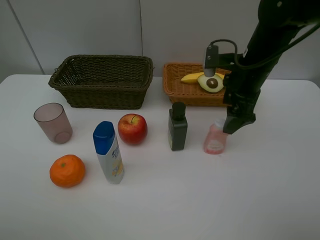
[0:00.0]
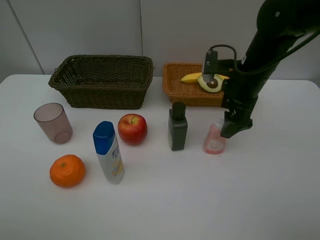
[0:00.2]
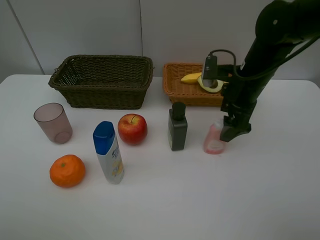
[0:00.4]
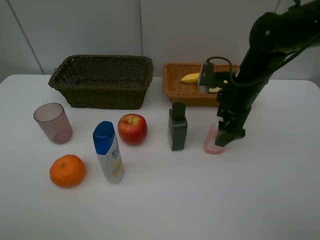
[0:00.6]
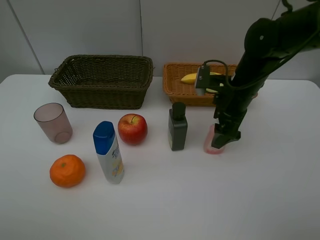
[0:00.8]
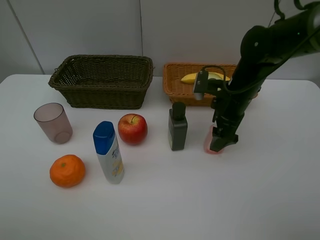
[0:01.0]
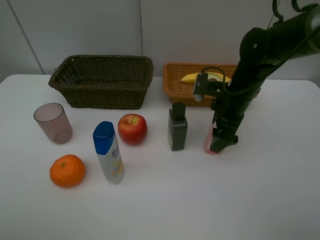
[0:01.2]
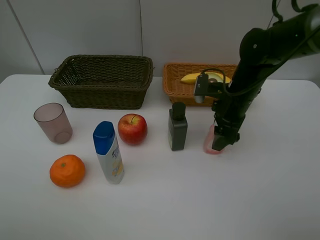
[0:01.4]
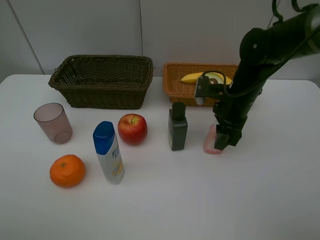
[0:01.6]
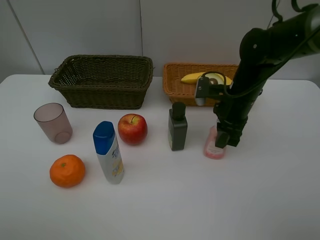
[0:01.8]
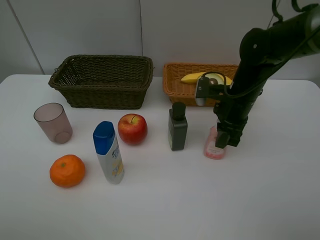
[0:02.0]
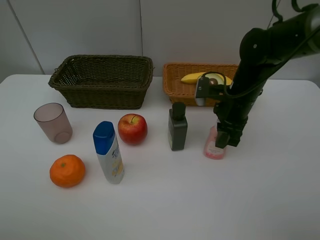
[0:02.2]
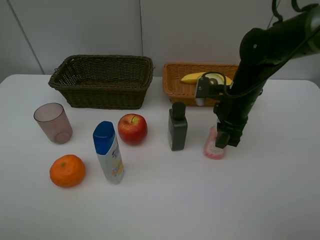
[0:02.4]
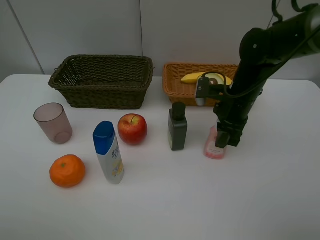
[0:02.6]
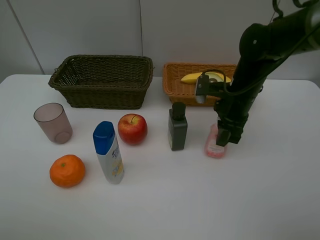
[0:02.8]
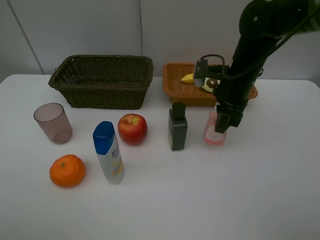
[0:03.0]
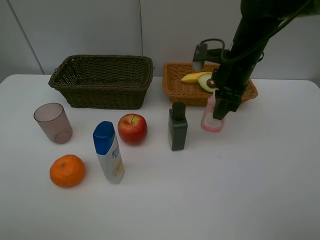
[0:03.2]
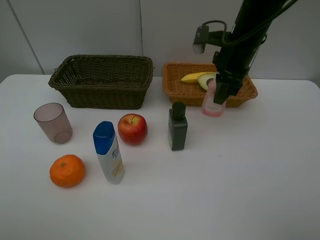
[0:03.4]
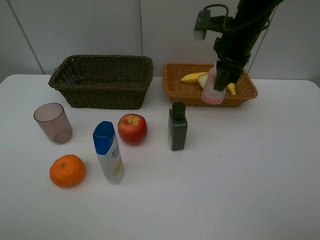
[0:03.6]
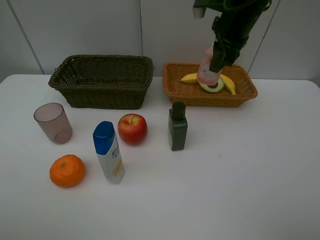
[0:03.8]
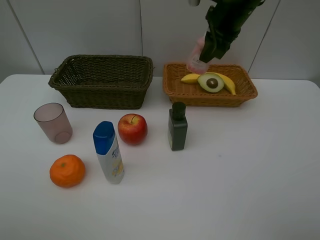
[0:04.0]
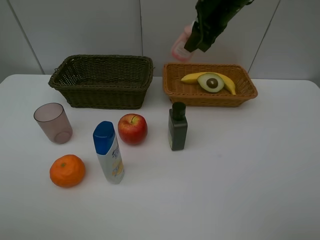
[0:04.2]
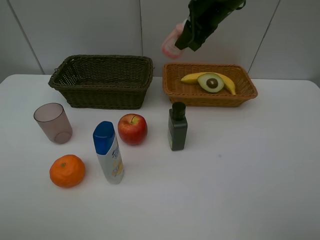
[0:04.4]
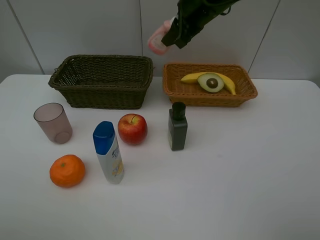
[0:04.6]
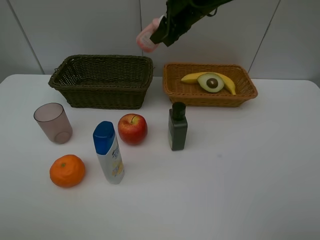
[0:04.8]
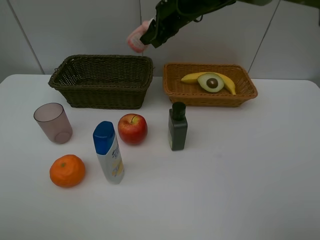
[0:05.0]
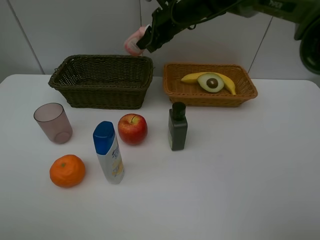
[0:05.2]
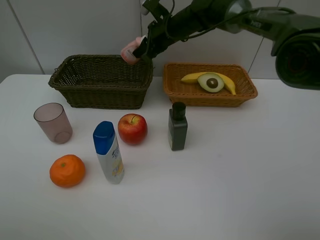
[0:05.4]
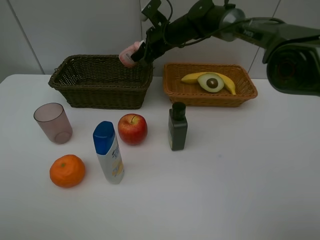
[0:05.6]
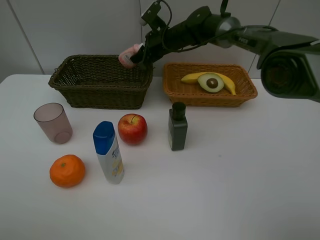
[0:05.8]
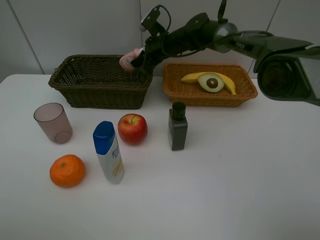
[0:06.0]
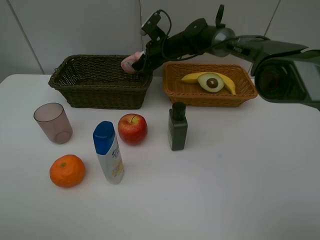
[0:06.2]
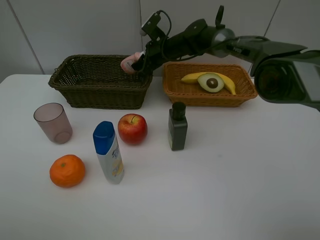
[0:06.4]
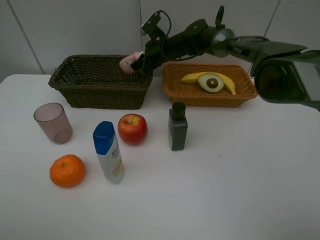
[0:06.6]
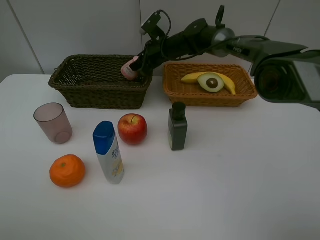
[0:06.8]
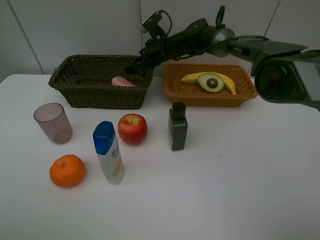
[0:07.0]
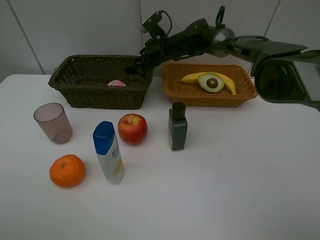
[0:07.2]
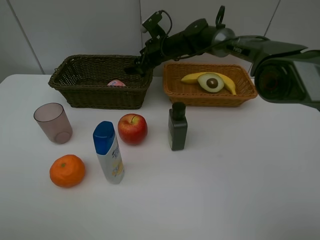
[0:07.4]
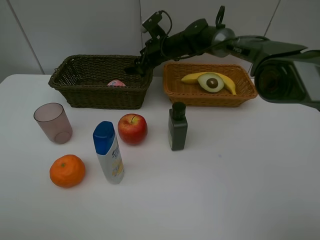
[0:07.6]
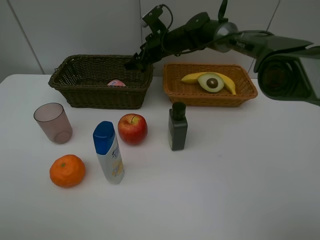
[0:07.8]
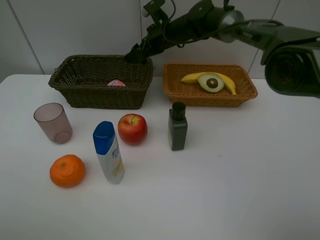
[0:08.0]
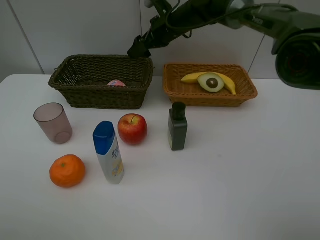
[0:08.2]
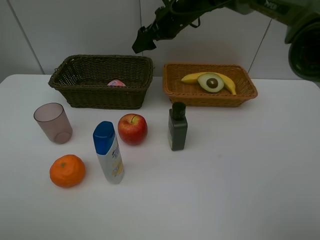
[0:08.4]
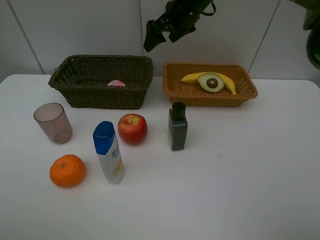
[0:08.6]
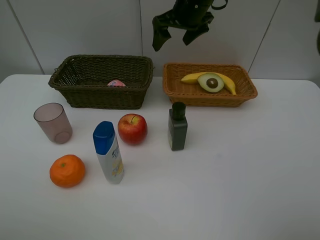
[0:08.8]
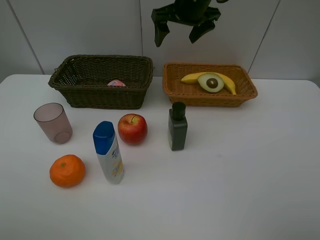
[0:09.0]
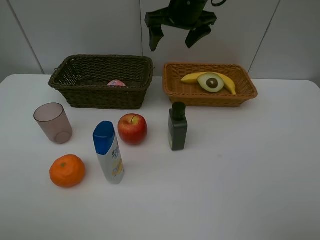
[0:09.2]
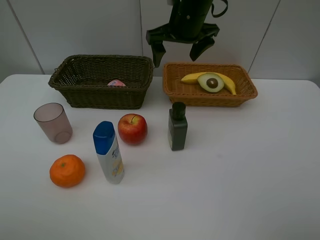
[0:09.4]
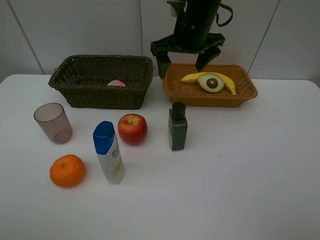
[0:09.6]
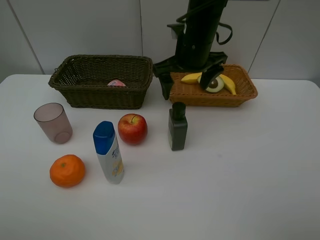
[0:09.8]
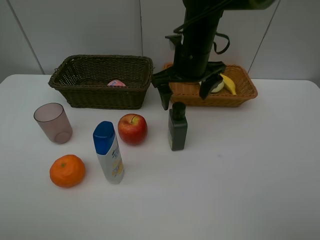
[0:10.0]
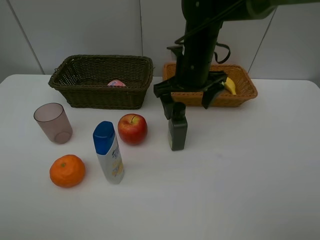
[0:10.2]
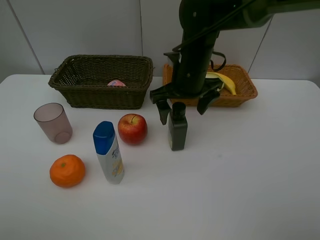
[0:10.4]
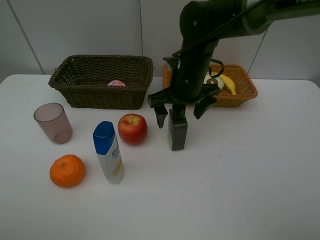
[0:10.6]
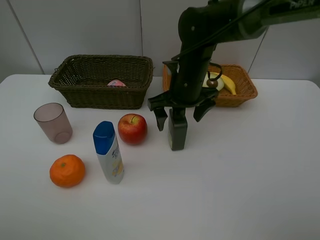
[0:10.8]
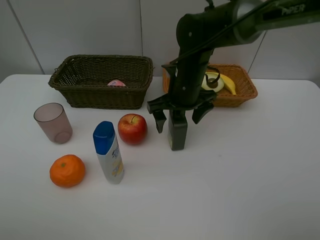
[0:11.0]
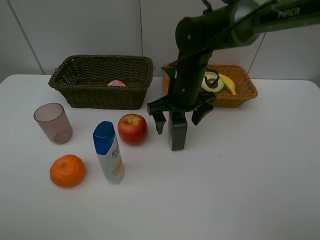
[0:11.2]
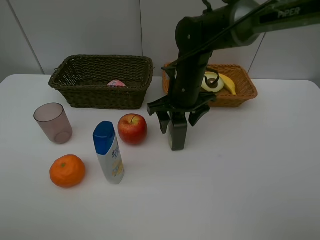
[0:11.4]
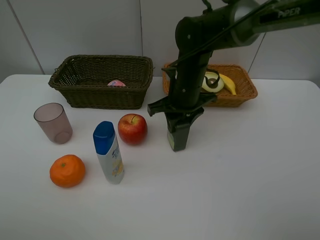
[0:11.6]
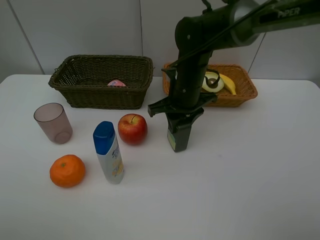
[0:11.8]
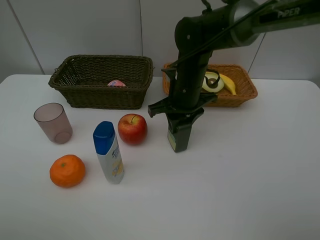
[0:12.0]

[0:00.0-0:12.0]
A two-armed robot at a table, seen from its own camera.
Task of the whole recording: Place multiple objects separately in different baskets.
Step, 0:00.0 to 0:03.0: Pick up the laundry detergent with right gripper.
Step, 0:03.2 to 0:07.6: Place the laundry detergent in the dark basket with right gripper.
0:00.0 to 0:01.6: The right gripper moves downward, approximately 5 cm, and closes up.
0:01.6 to 0:03.0: The right gripper moves approximately 5 cm.
0:03.0 to 0:04.4: The right gripper heads upward and forward, covering about 10 cm.
0:04.4 to 0:06.0: The right gripper is displaced downward, forward and to the left by approximately 20 cm.
0:06.0 to 0:07.6: The right gripper opens up.
0:07.6 to 0:09.0: The right gripper heads upward and backward, covering roughly 15 cm.
0:09.0 to 0:10.4: The right gripper moves downward and backward, roughly 15 cm.
0:10.4 to 0:12.0: The right gripper closes.

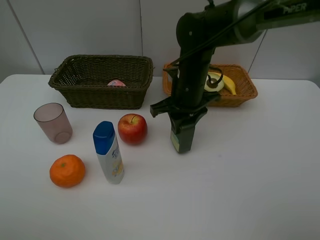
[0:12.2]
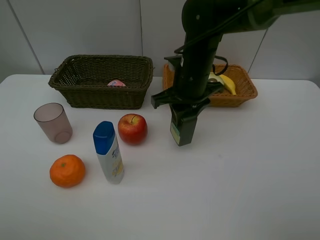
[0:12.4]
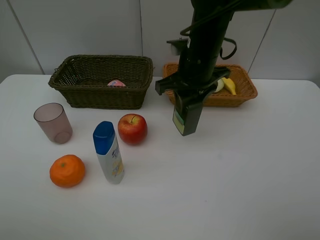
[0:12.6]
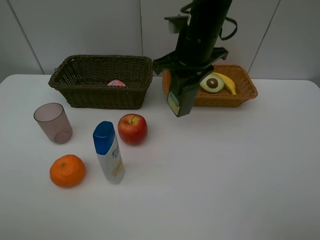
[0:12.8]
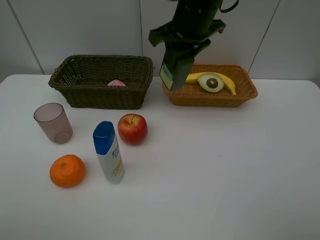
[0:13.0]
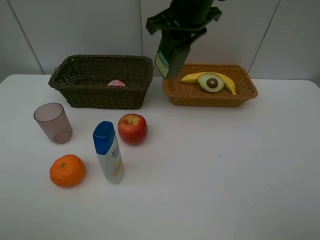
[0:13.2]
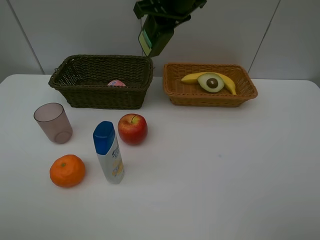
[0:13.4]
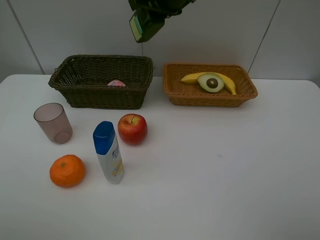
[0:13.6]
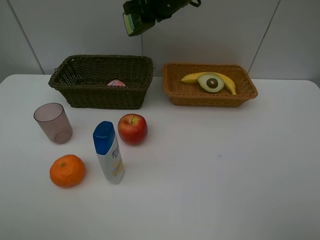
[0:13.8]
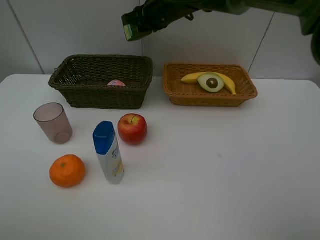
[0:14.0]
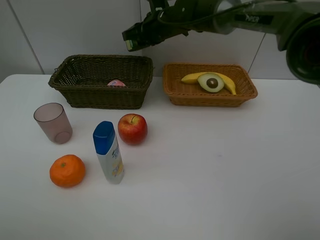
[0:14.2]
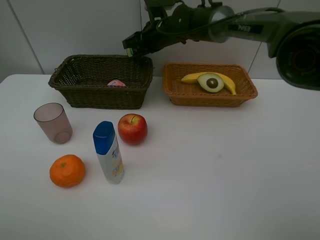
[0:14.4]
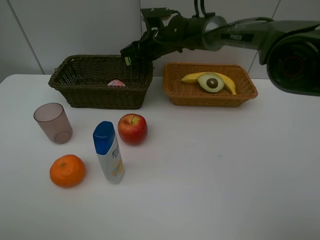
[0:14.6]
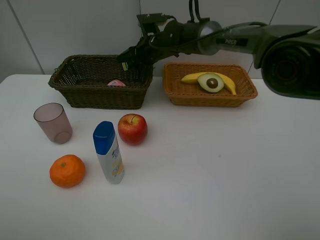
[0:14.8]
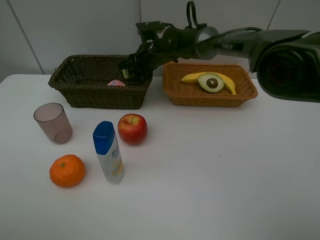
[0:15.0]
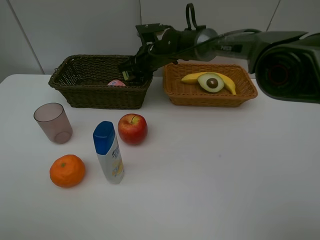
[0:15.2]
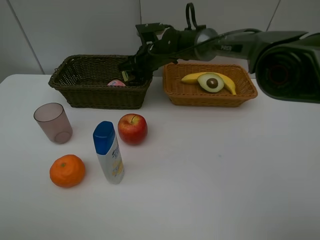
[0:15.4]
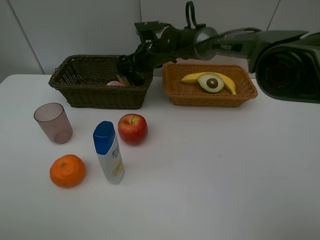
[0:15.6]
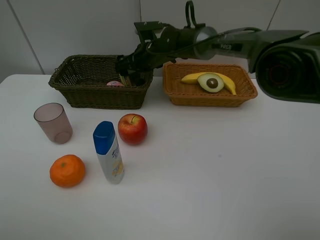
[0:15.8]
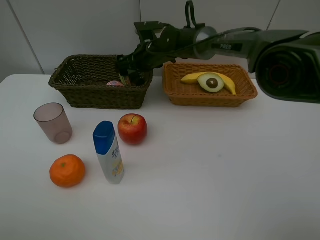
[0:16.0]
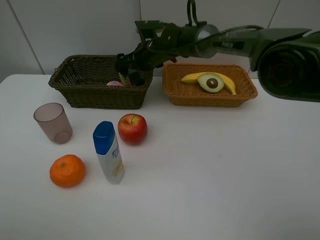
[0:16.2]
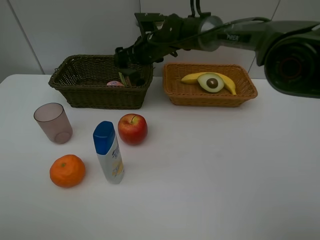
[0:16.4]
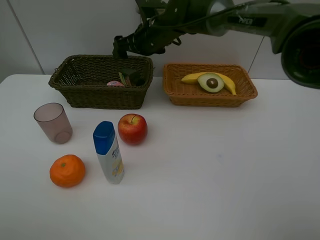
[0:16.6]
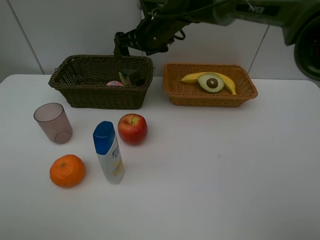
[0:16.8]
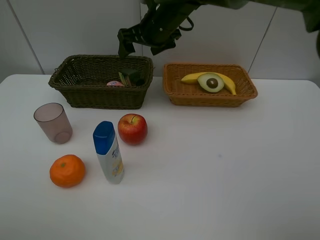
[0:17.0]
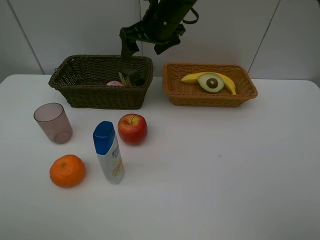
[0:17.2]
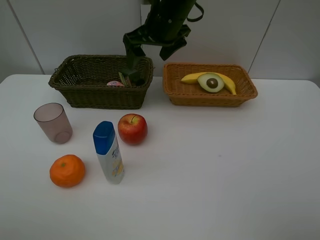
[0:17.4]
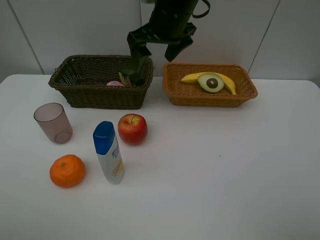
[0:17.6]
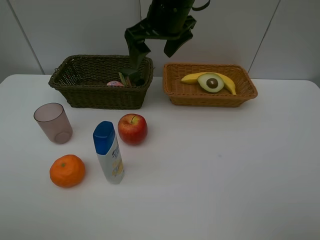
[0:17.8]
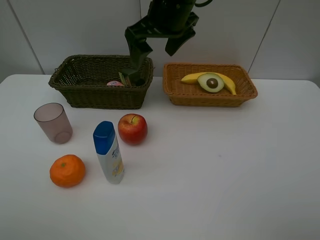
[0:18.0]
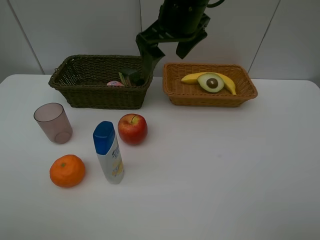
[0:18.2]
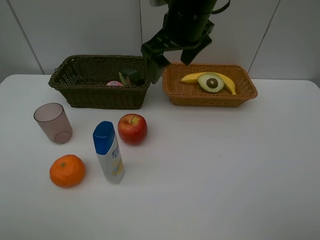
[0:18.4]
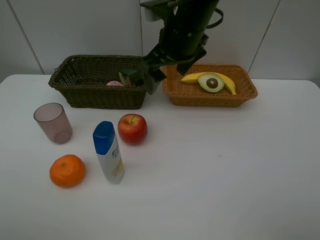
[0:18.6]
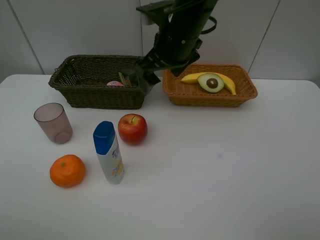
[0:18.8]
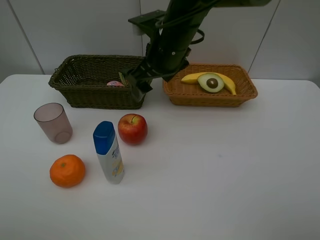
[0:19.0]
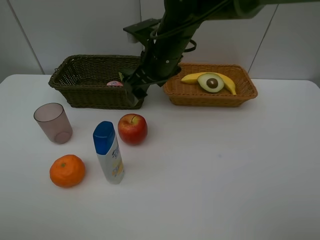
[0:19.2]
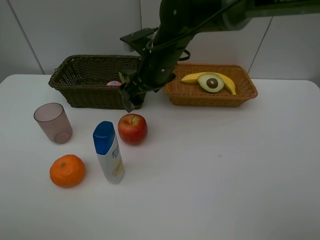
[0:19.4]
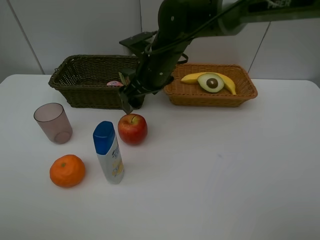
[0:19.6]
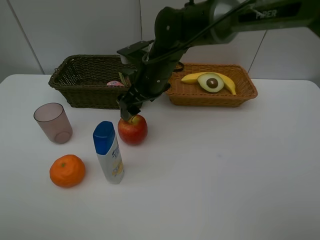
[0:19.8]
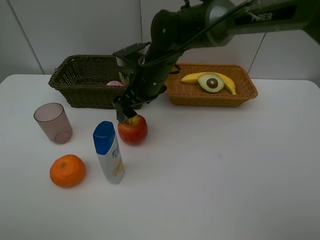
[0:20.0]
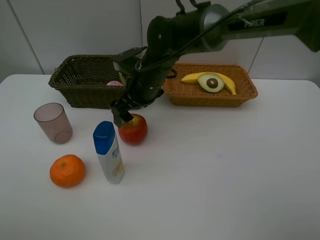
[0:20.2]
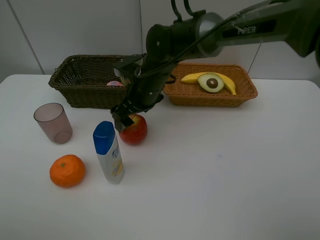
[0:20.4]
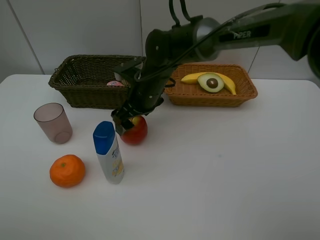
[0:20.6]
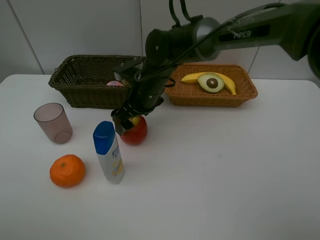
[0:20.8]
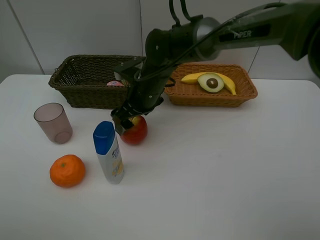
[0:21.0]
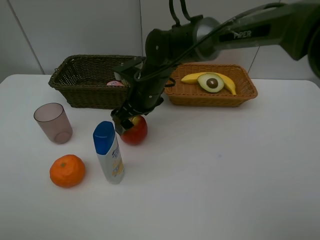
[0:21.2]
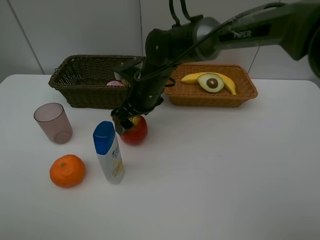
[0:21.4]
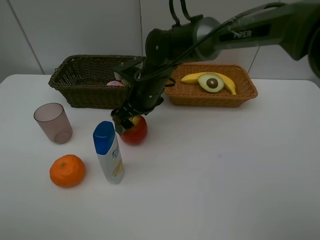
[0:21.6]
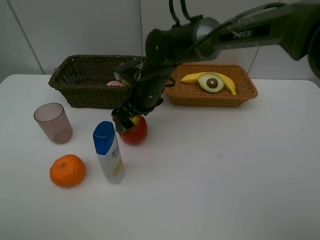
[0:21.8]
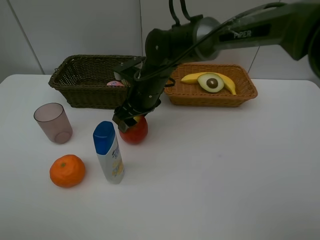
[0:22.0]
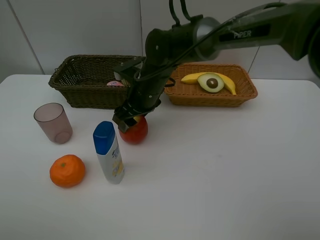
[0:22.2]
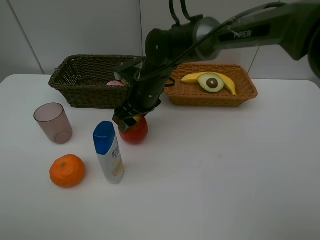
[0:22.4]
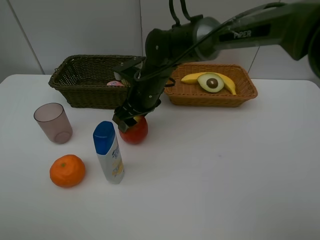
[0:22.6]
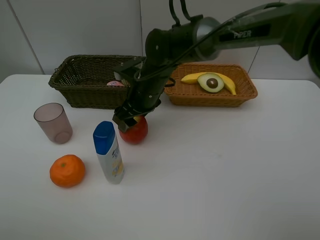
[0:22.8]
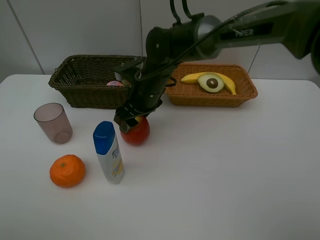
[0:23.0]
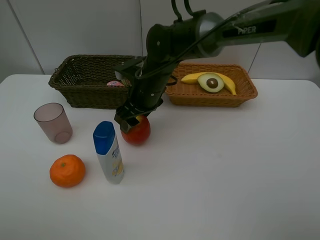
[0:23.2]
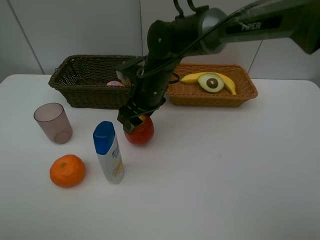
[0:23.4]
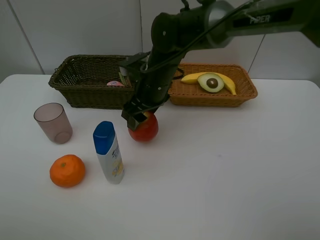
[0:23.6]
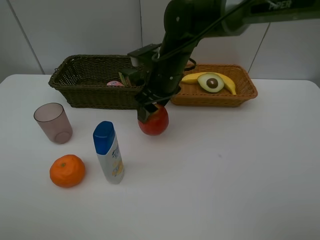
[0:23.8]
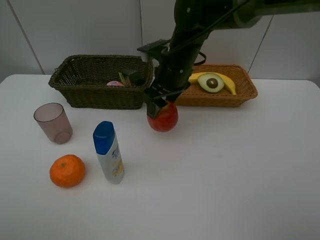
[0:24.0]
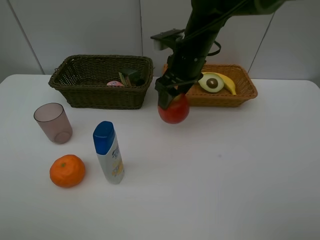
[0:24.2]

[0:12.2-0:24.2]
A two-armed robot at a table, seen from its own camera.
Task of the whole recording: Place multiple objects separately in different baskets.
Step, 0:12.6 to 0:16.4: Place the hard facial cleanser in the dark basket with right gripper.
Step, 0:16.6 to 0:23.6: Pick up the apple with right gripper.
0:12.2 to 0:13.8: The right gripper is displaced forward and upward by about 15 cm.
0:13.8 to 0:15.2: The right gripper moves downward, approximately 15 cm.
0:15.2 to 0:16.6: The right gripper heads upward, covering roughly 5 cm, and opens up.
0:16.6 to 0:18.2: The right gripper heads backward and upward, covering approximately 15 cm.
0:18.2 to 0:19.8: The right gripper goes some 15 cm downward.
0:19.8 to 0:21.2: The grippers make only small movements.
0:22.6 to 0:24.2: The right gripper shifts some 10 cm to the right and upward.
